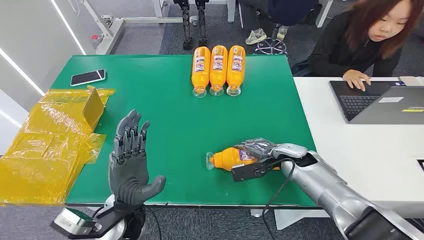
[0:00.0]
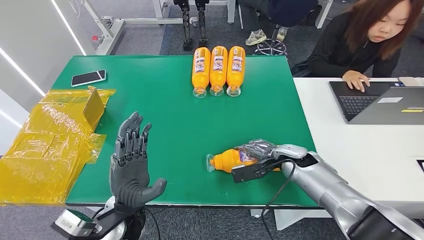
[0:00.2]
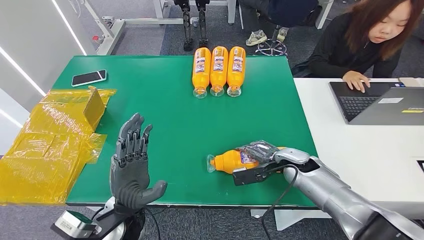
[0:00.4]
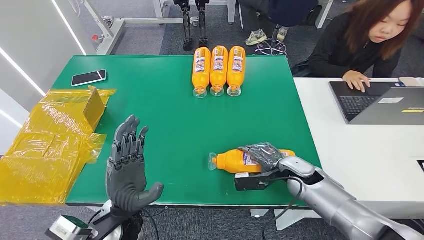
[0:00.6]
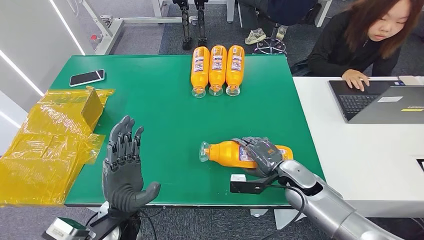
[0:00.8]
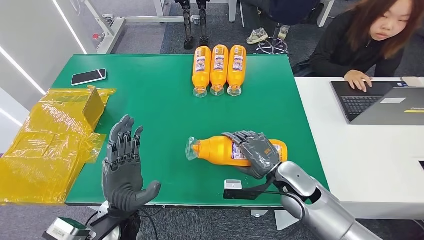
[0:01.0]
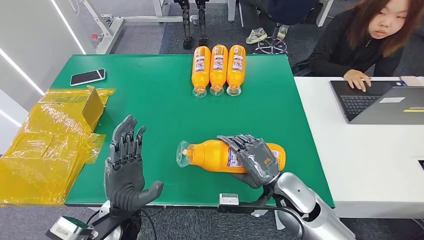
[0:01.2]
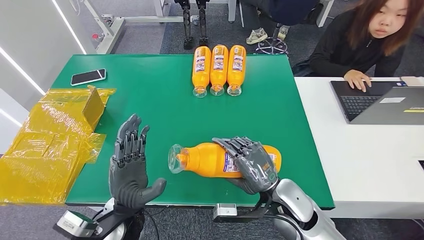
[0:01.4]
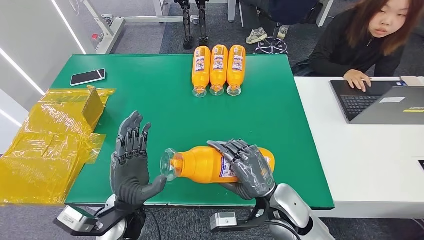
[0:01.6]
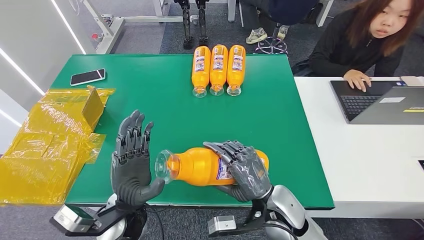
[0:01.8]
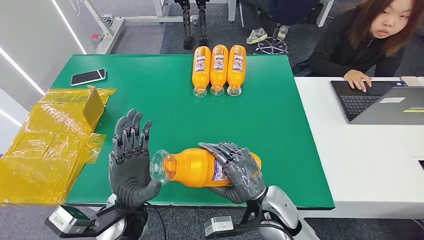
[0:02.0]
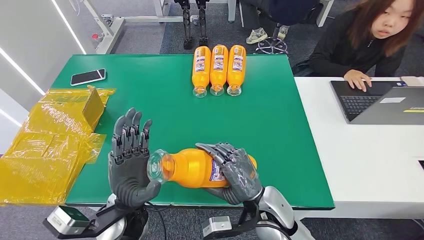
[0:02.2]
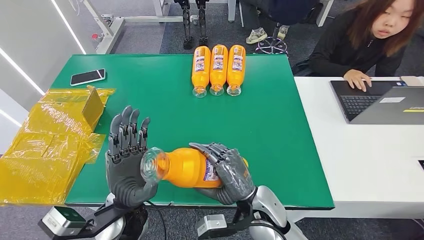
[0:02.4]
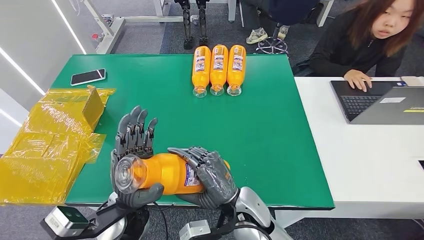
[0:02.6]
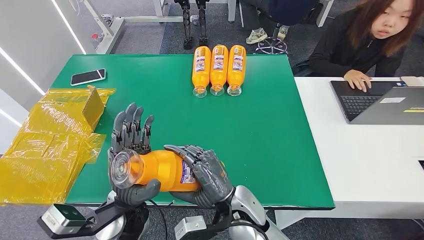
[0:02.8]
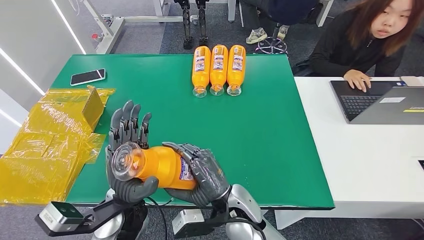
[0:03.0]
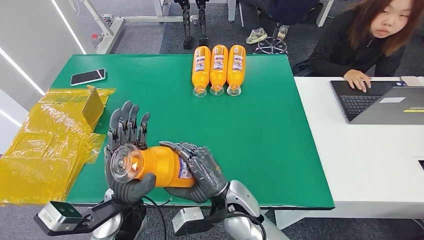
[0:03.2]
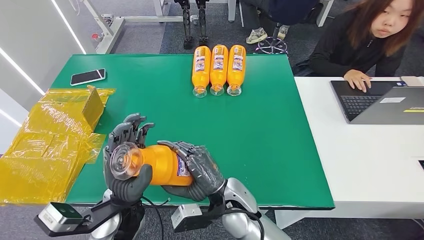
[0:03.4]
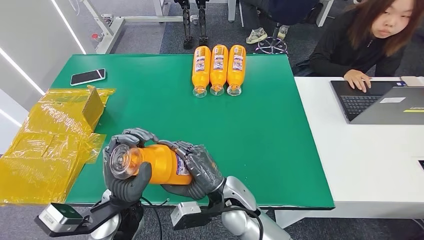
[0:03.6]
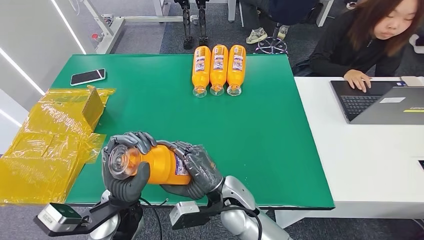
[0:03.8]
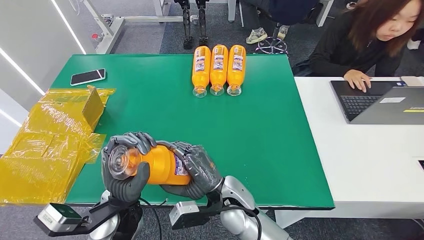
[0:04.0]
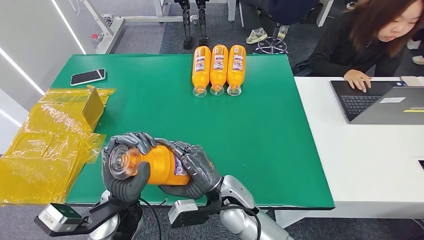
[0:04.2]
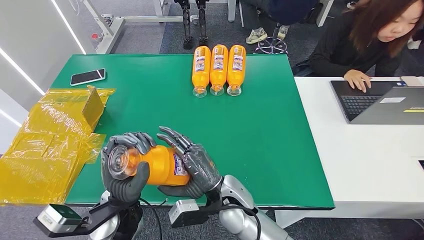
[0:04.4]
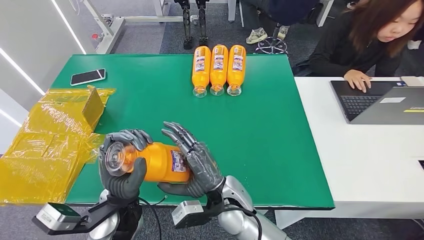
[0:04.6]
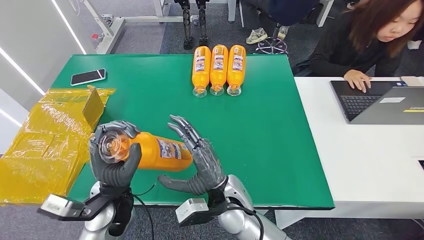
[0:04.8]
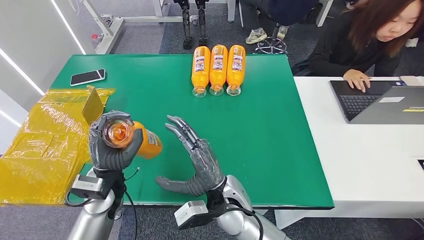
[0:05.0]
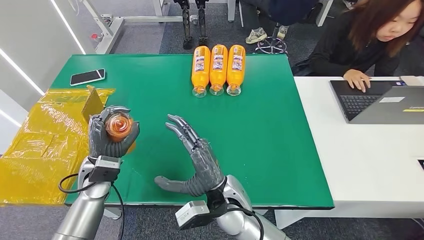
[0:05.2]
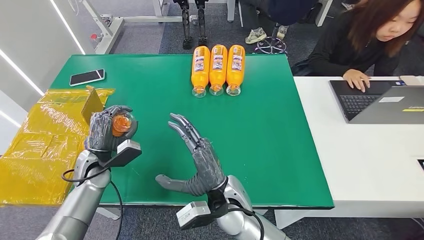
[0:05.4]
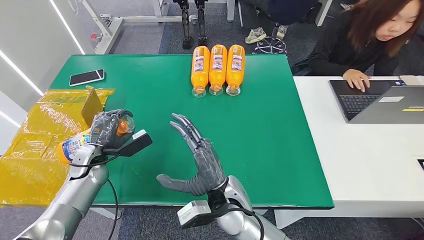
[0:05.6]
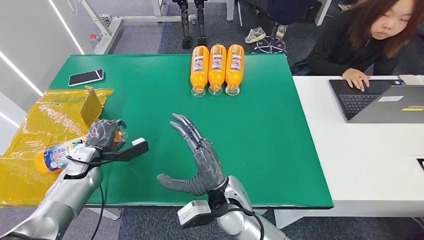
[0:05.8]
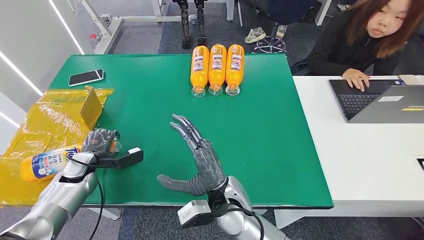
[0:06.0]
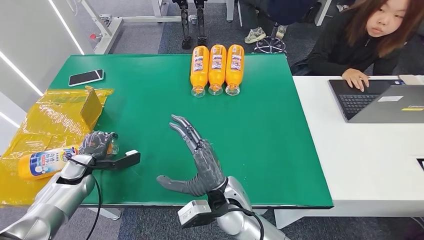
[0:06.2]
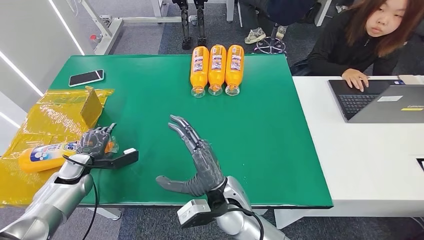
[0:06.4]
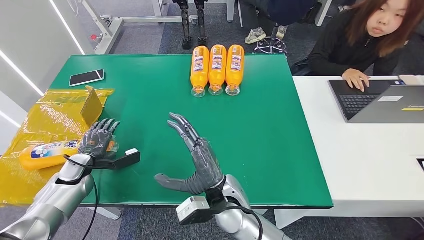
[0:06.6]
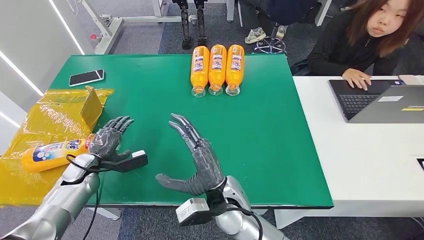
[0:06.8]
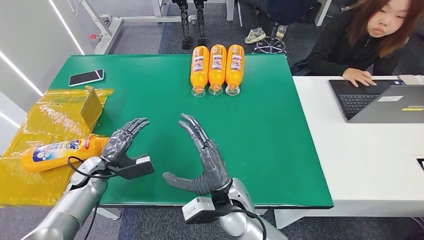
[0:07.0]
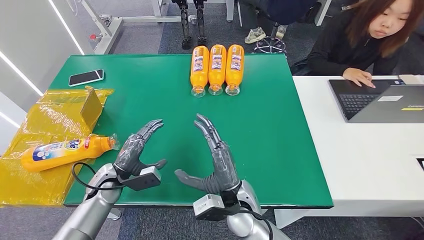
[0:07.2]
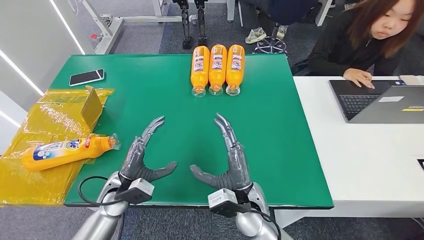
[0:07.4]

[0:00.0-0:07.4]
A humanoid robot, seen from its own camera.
Step, 0:00.0 to 0:01.6: Pick up the bottle from the table.
Step, 0:01.8 to 0:07.4: Turn the bottle to the front side.
0:01.4 to 0:03.0: The right hand moves to the left, about 15 cm.
0:03.0 to 0:04.4: There are only small adjustments of the hands.
0:06.0 to 0:07.4: The left hand moves to the right, some 15 cm, while the right hand changes place by about 5 cm.
